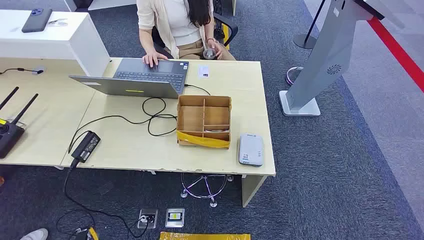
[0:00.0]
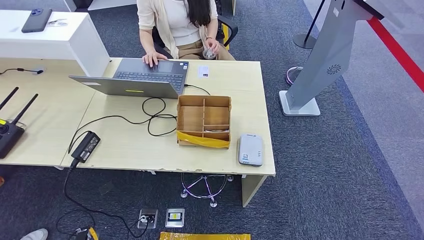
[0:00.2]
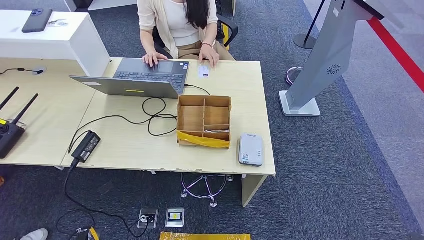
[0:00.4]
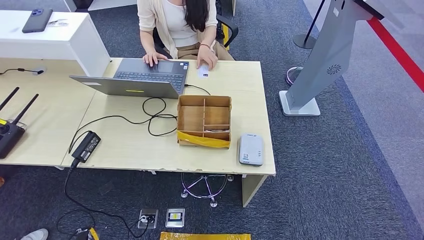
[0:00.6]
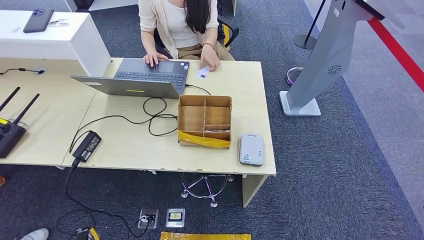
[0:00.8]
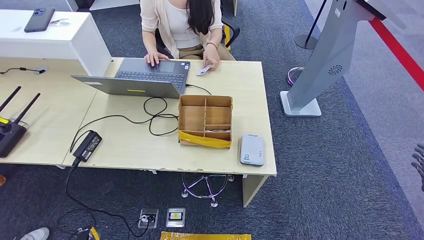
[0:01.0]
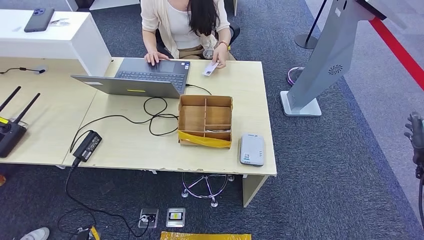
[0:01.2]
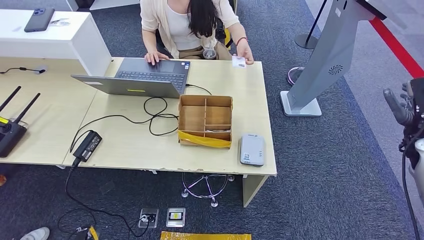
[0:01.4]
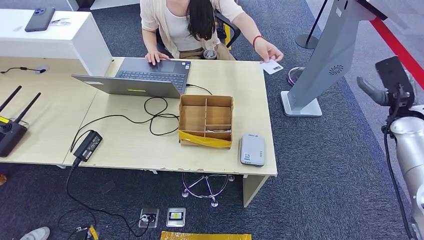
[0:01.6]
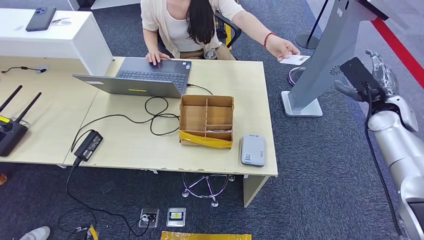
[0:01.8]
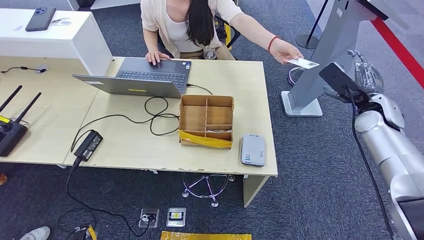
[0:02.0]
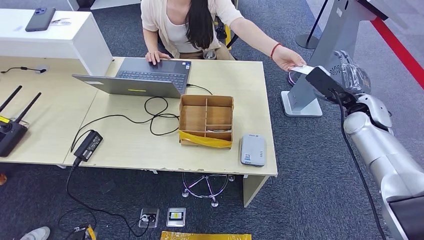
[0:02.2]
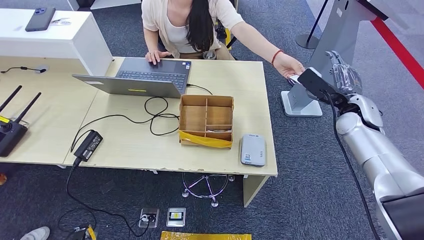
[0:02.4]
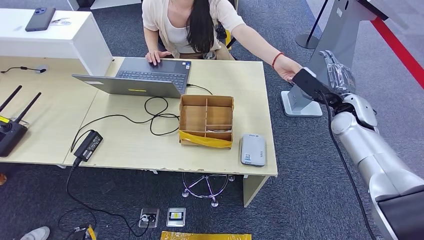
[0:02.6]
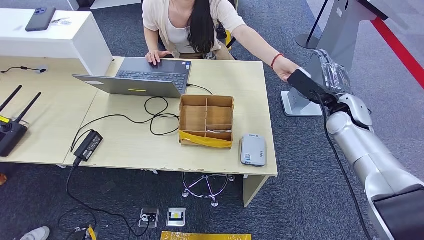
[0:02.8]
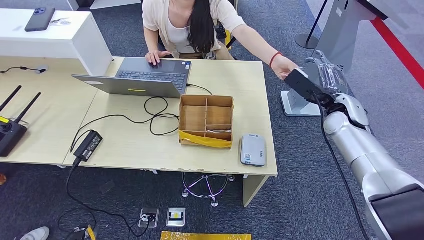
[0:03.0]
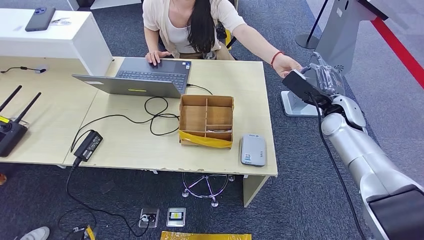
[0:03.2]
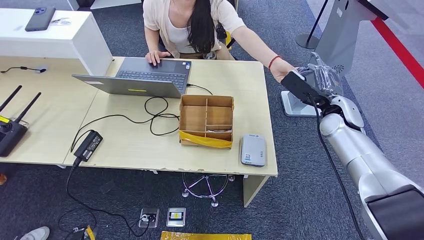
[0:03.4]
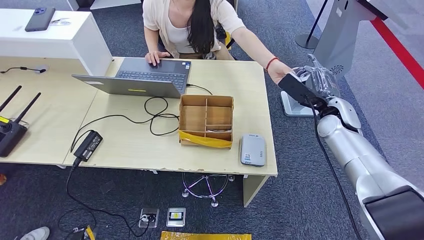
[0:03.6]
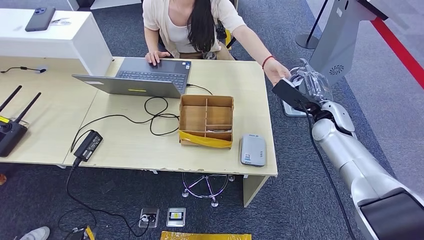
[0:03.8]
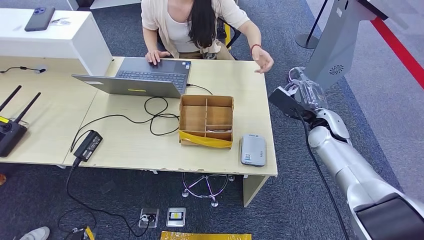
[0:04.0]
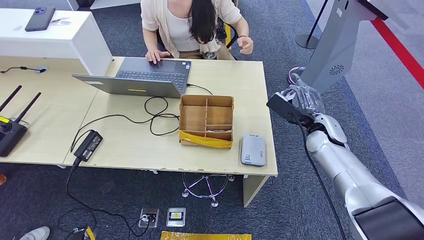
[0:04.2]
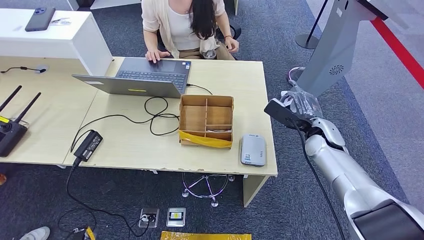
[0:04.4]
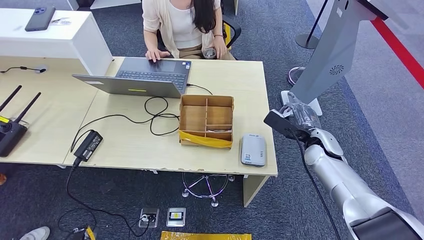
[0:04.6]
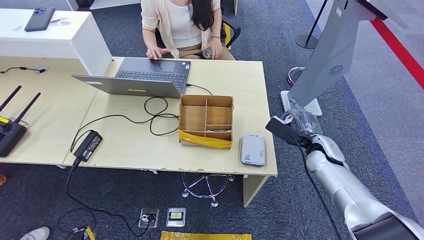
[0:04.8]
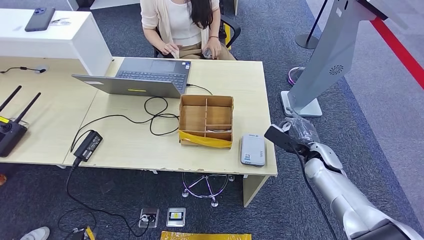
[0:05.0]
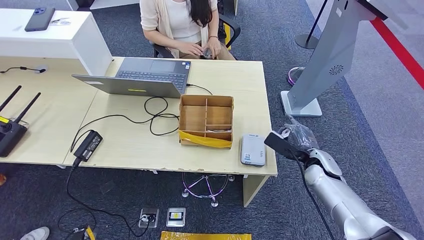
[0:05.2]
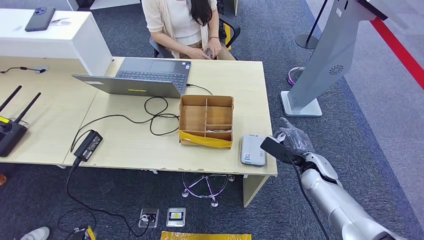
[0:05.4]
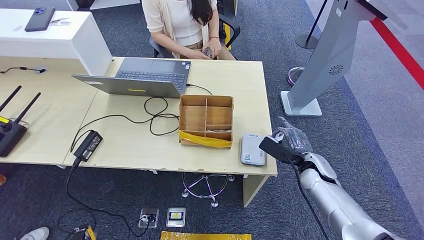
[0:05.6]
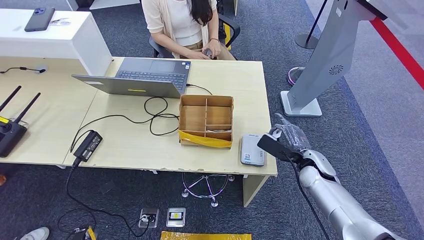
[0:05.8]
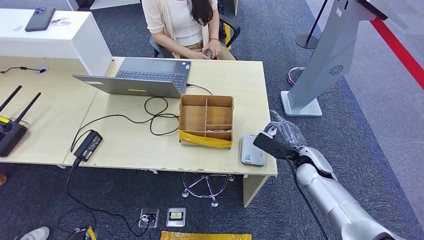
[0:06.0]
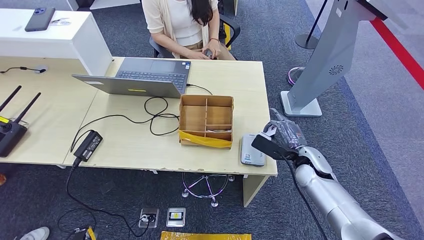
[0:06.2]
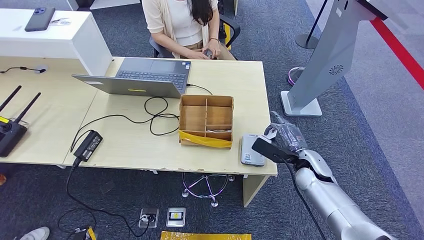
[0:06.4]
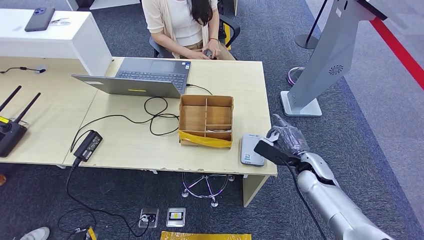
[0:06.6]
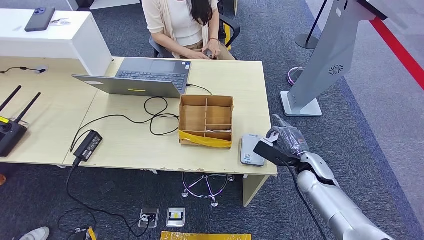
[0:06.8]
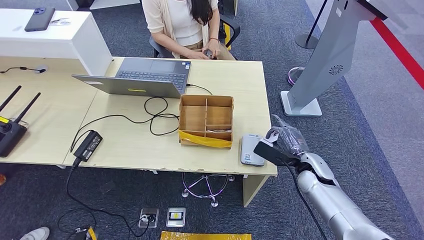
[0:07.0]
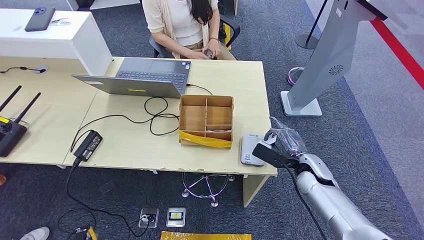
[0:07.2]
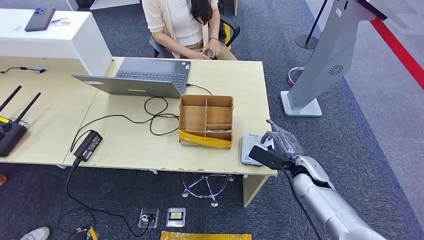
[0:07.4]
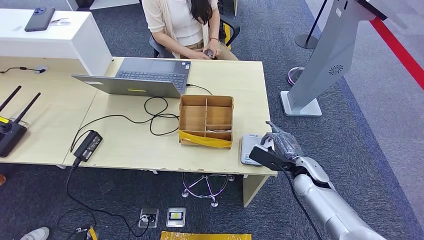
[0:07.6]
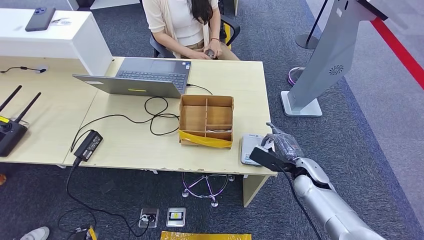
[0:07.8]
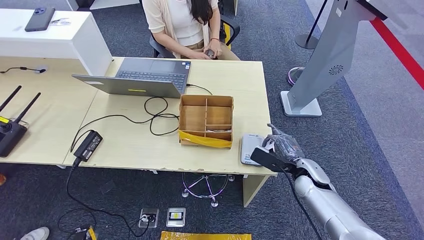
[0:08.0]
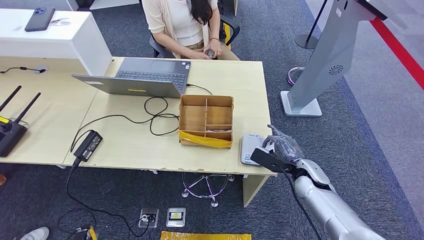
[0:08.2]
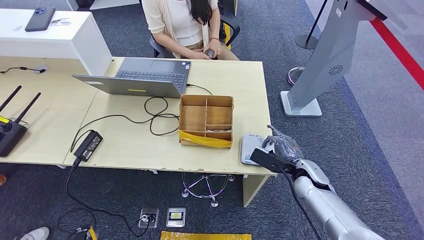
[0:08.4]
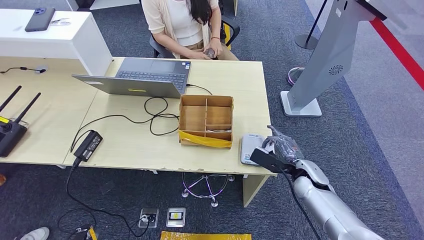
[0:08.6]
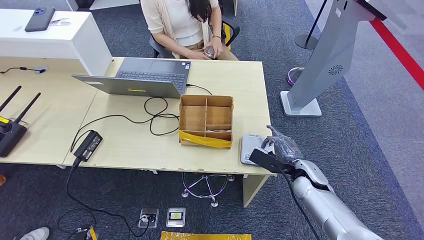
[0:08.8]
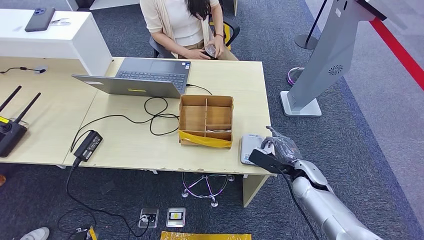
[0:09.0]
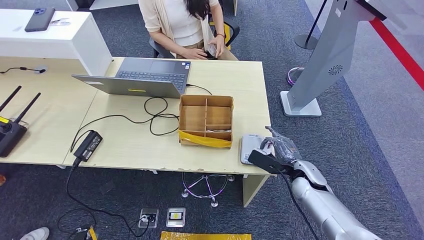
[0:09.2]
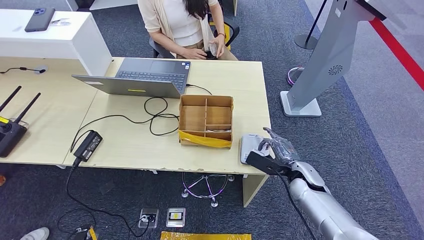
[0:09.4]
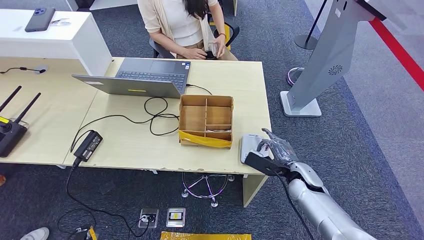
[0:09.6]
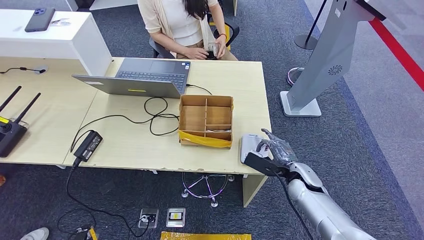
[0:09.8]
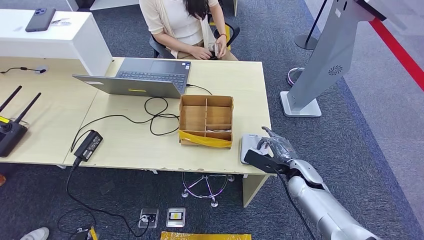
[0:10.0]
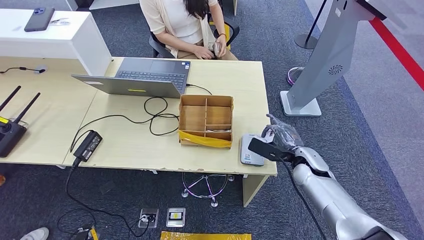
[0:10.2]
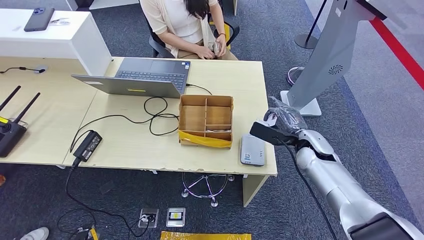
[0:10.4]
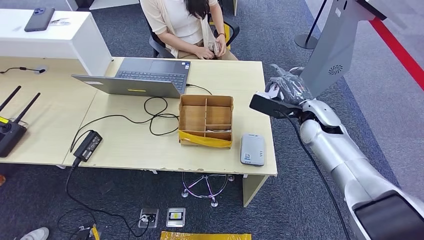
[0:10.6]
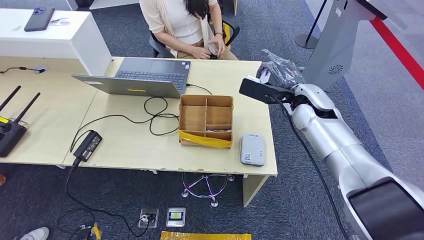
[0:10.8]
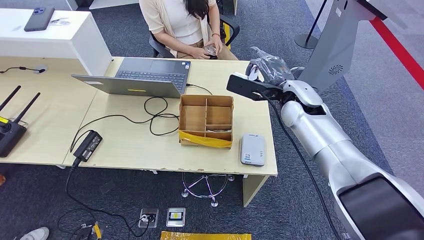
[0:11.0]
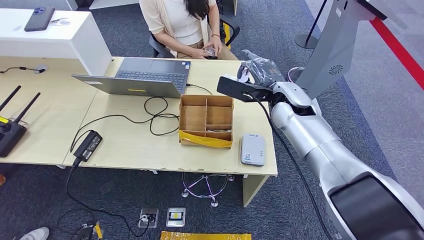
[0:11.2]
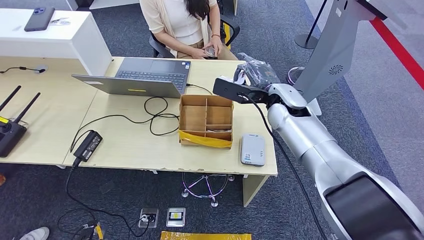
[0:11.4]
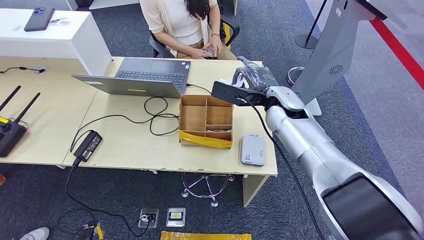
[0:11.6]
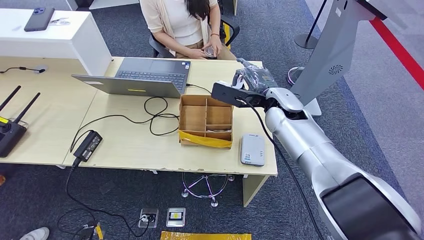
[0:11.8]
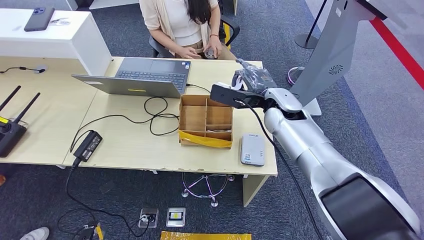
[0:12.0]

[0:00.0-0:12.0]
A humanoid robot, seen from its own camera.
Step, 0:00.0 to 0:03.8: Take the ID card from the person's hand.
Step, 0:04.0 to 0:08.0: Place the ID card on the card reader.
0:01.6 to 0:03.0: The right hand moves to the left, roughly 15 cm.
0:03.0 to 0:04.4: The right hand heads downward, covering approximately 5 cm.
0:04.4 to 0:06.0: The right hand shifts roughly 10 cm downward and backward.
0:06.0 to 0:09.0: The hands make only small movements.
0:09.0 to 0:10.4: The right hand moves upward and forward, about 10 cm.
0:10.4 to 0:12.0: The right hand shifts some 15 cm to the left and upward.

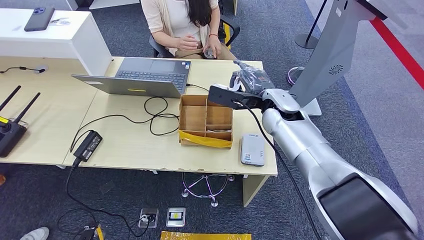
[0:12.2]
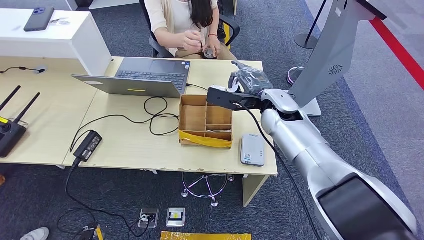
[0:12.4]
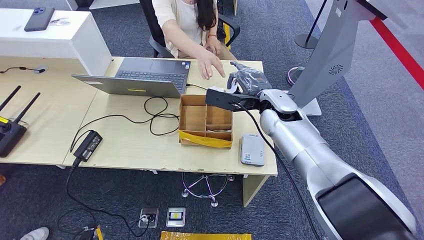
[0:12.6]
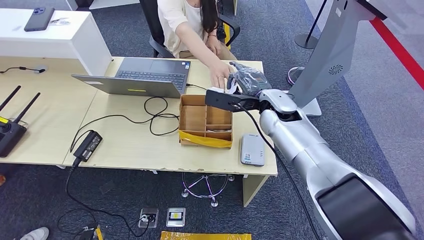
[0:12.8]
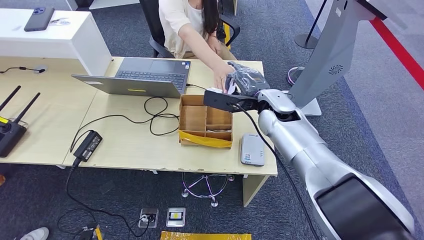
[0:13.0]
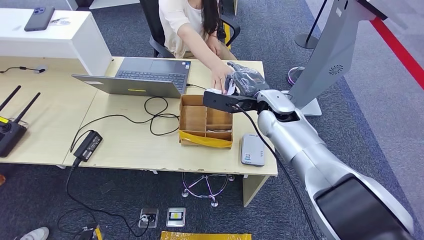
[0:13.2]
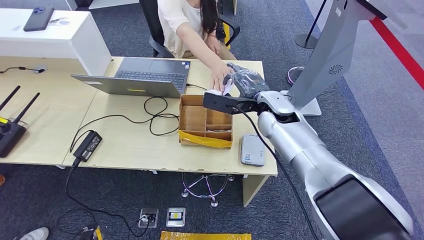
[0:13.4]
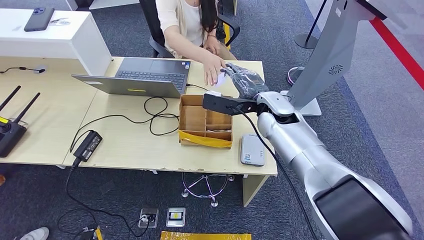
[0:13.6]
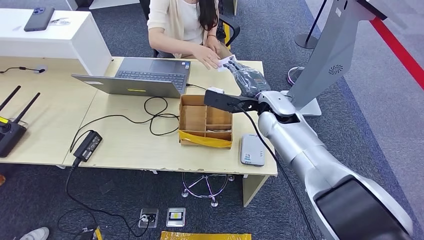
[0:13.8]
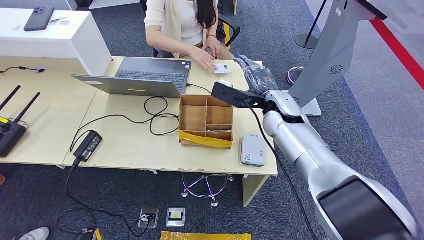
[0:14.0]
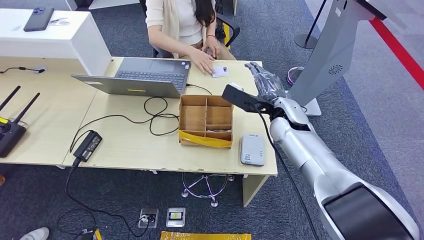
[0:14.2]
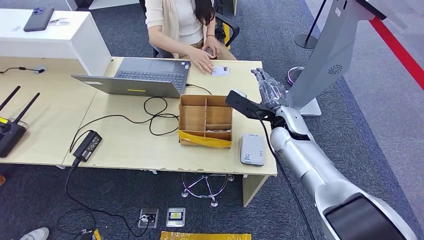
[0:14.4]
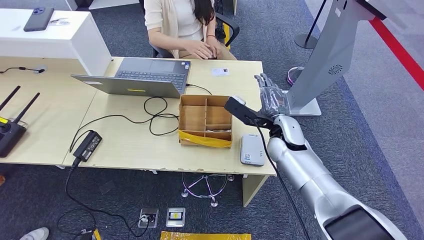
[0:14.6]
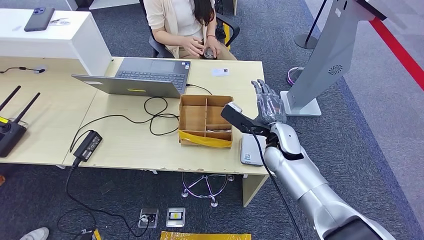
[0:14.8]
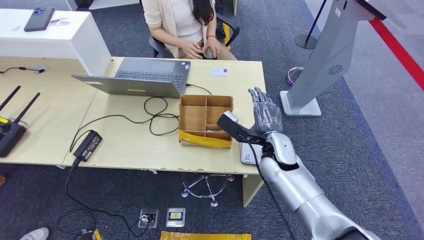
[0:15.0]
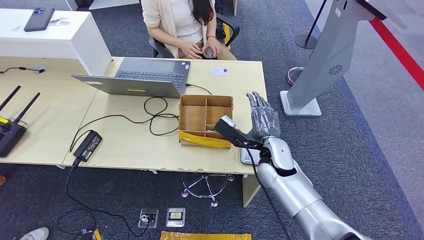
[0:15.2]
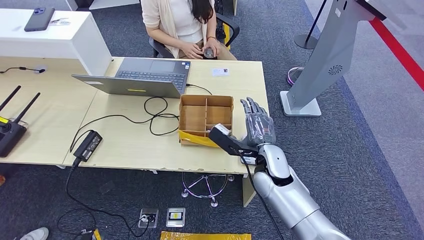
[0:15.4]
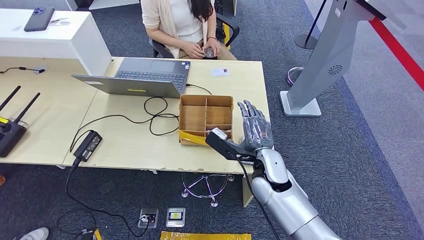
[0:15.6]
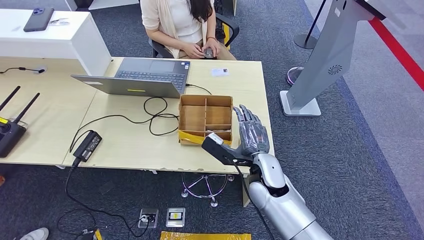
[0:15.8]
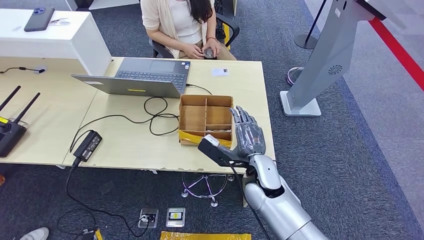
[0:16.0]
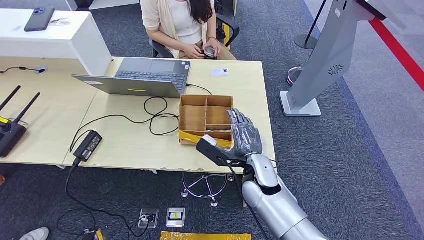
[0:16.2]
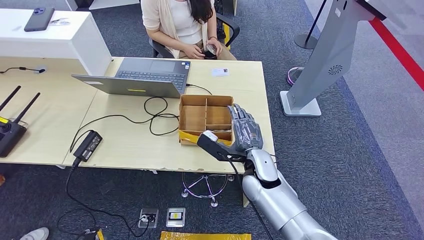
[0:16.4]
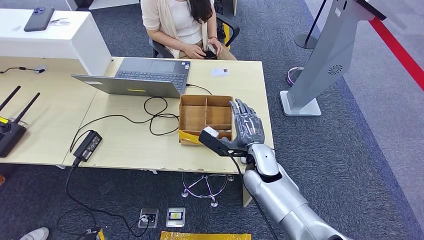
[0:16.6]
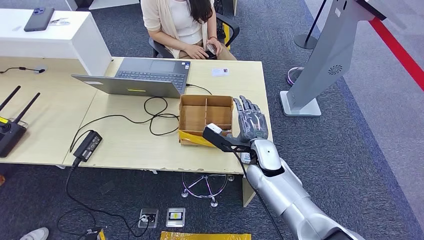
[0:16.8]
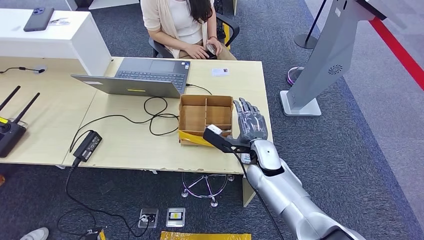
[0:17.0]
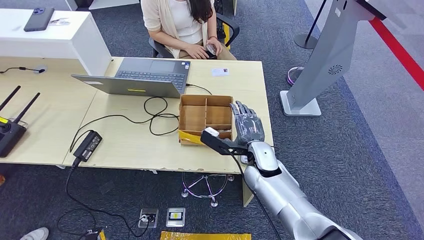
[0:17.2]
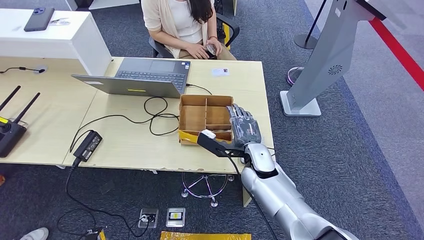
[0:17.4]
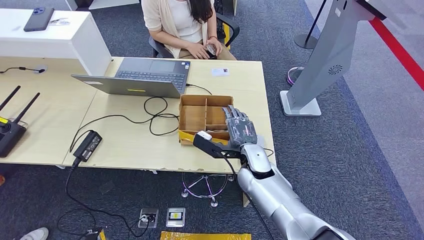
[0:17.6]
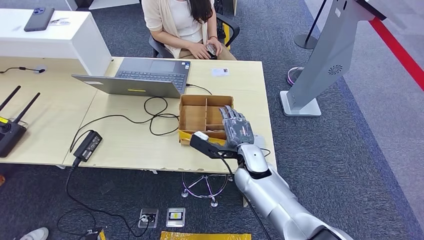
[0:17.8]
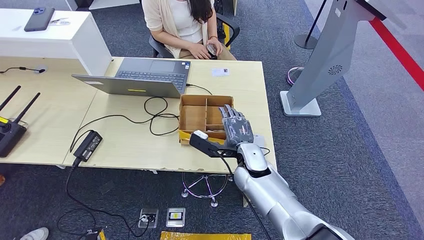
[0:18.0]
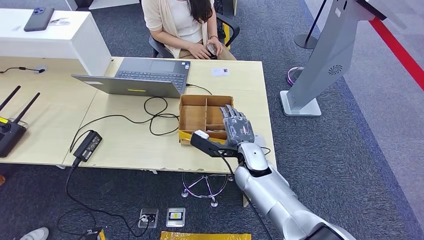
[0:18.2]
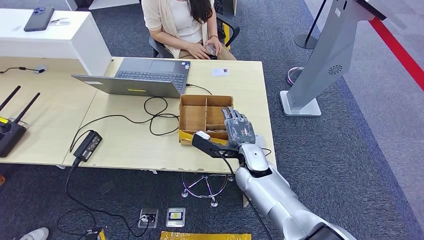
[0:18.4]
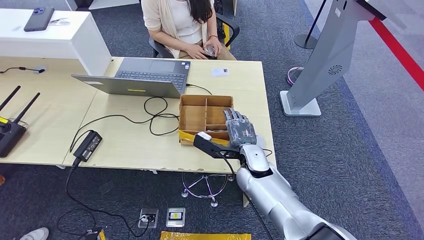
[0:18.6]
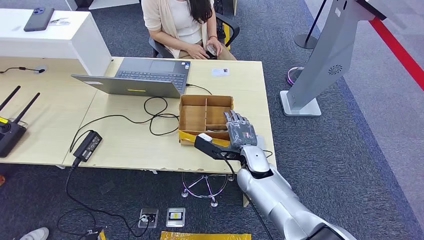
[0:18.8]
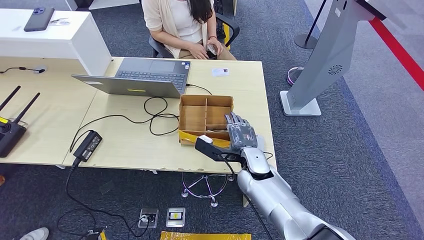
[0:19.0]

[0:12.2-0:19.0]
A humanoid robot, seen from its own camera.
0:12.2 to 0:13.6: The two hands keep their place.
0:13.6 to 0:15.0: The right hand is displaced downward and backward by approximately 10 cm.
0:15.0 to 0:16.2: The right hand is displaced backward by roughly 5 cm.
0:16.2 to 0:19.0: The hands make only small movements.
